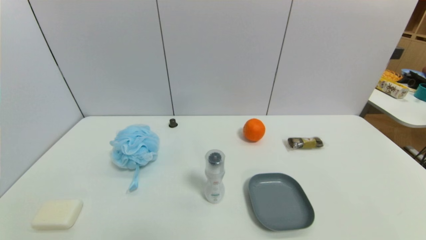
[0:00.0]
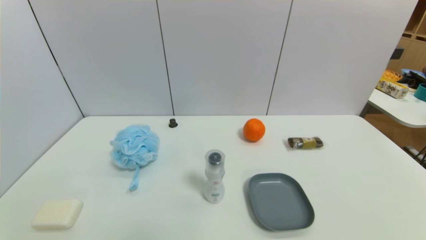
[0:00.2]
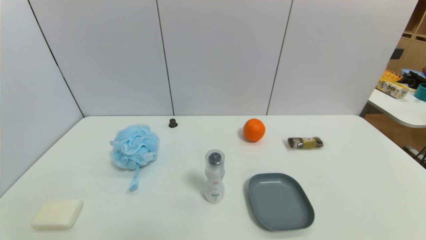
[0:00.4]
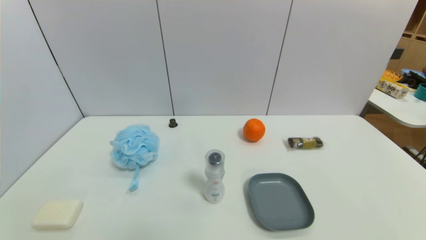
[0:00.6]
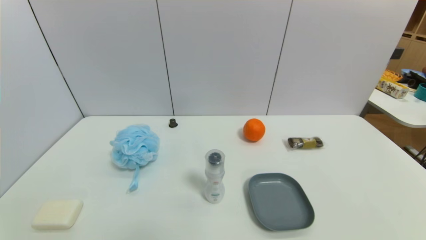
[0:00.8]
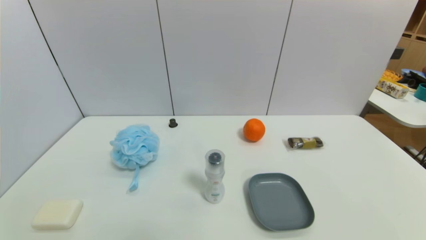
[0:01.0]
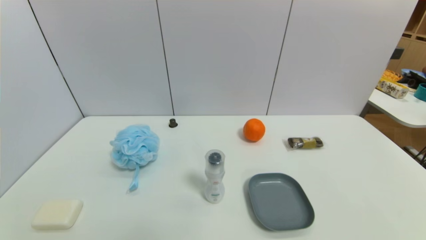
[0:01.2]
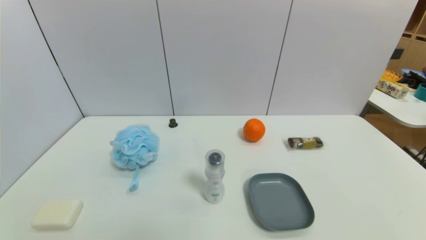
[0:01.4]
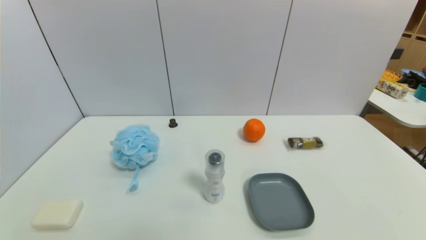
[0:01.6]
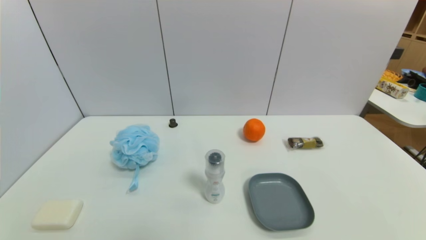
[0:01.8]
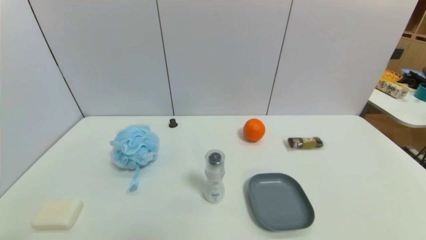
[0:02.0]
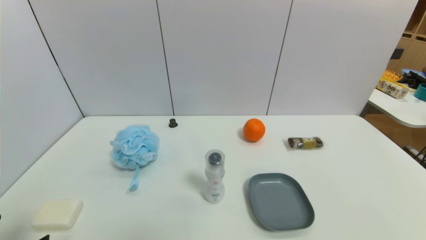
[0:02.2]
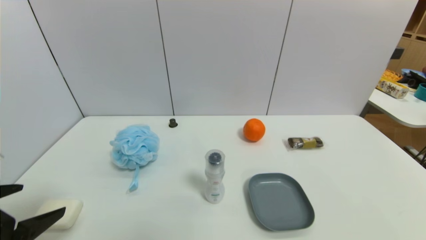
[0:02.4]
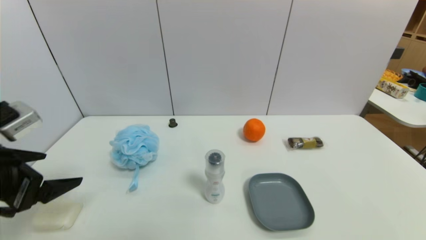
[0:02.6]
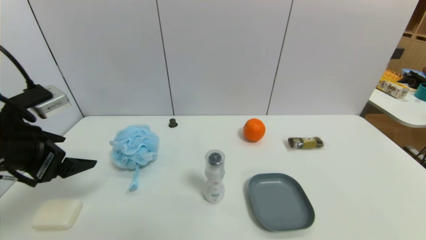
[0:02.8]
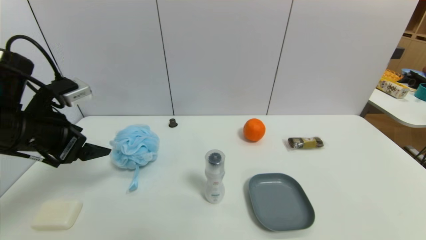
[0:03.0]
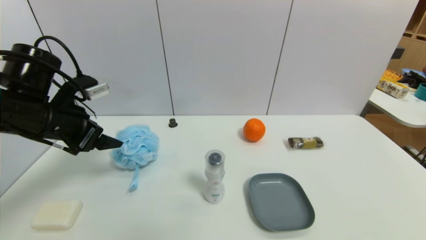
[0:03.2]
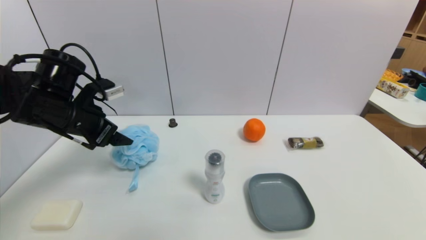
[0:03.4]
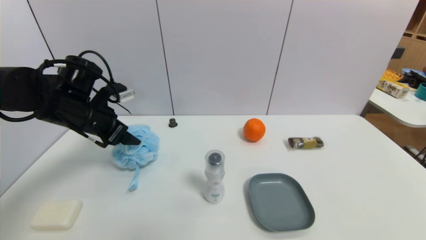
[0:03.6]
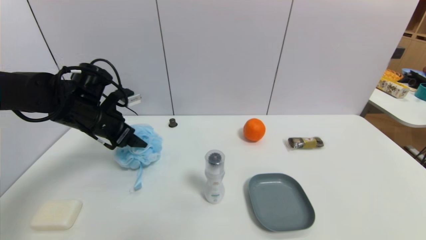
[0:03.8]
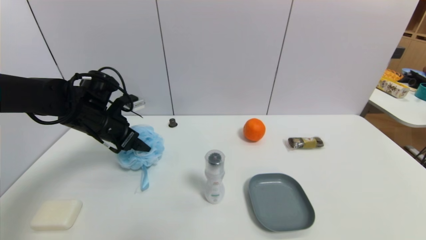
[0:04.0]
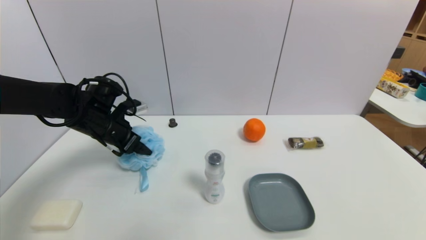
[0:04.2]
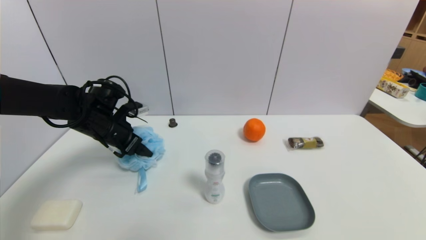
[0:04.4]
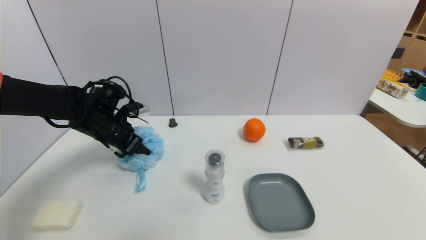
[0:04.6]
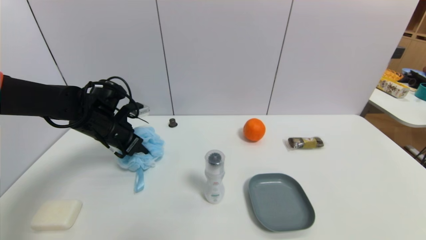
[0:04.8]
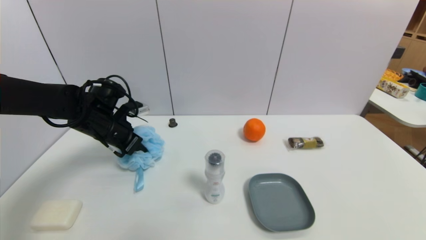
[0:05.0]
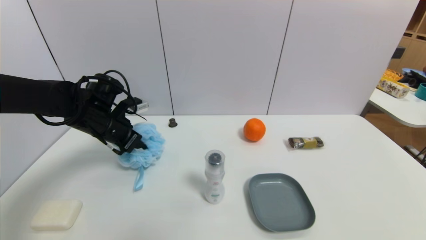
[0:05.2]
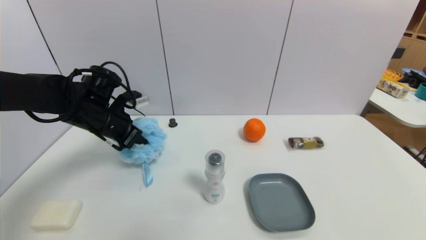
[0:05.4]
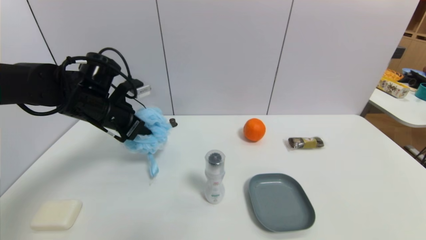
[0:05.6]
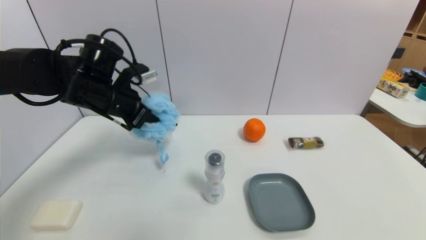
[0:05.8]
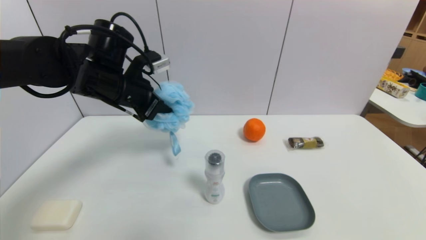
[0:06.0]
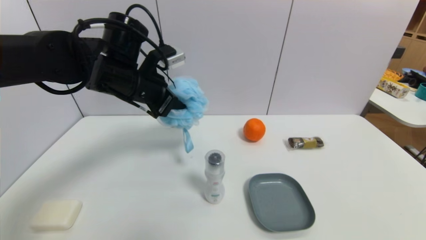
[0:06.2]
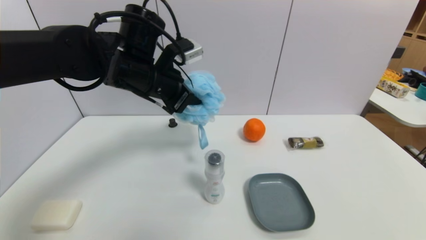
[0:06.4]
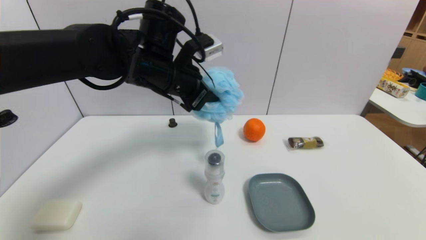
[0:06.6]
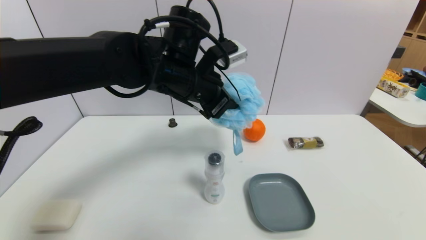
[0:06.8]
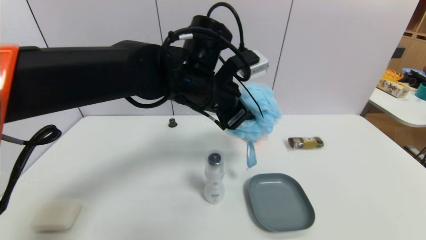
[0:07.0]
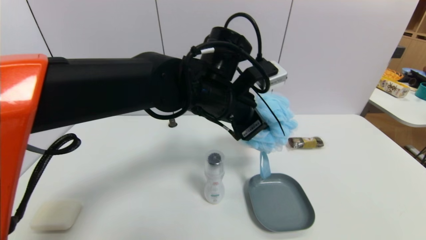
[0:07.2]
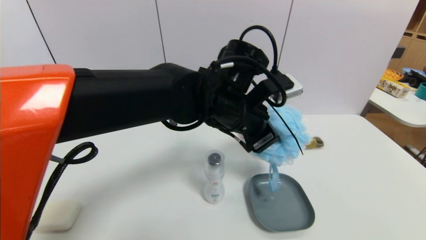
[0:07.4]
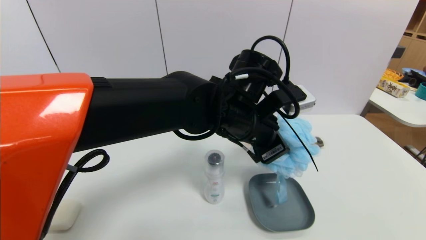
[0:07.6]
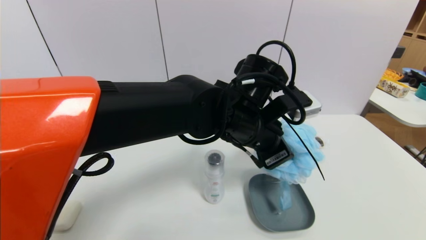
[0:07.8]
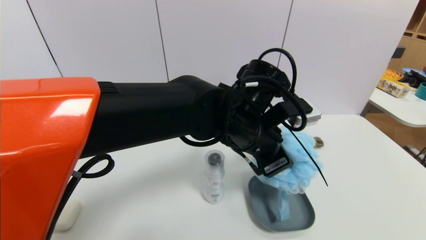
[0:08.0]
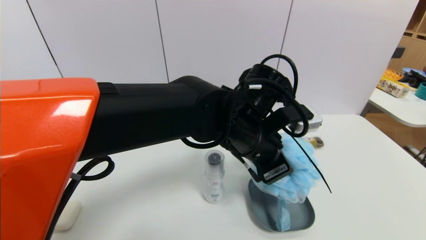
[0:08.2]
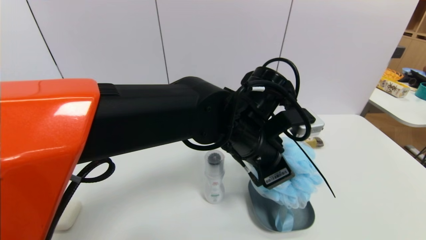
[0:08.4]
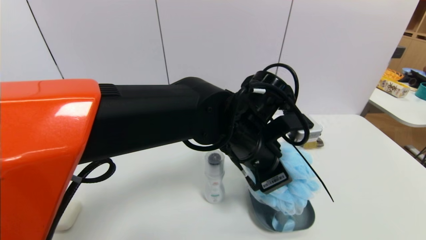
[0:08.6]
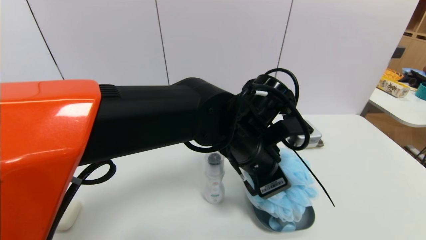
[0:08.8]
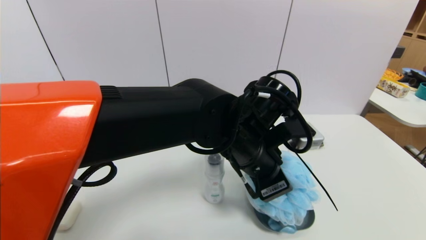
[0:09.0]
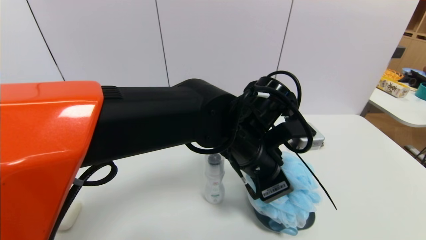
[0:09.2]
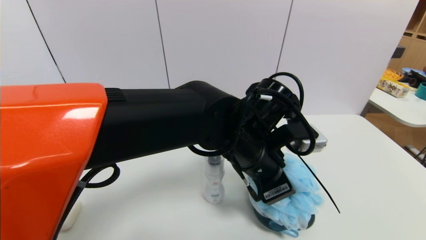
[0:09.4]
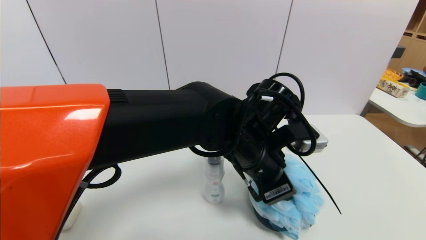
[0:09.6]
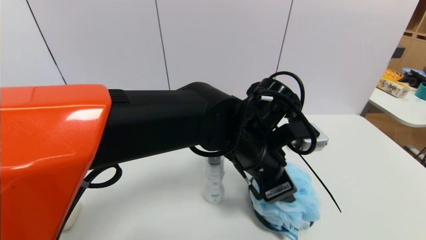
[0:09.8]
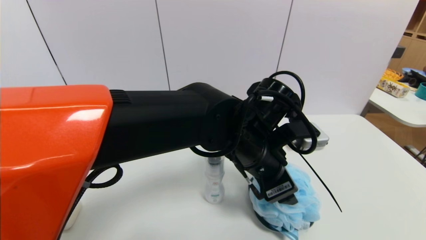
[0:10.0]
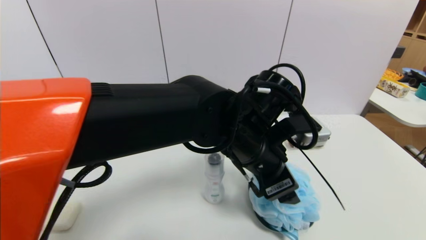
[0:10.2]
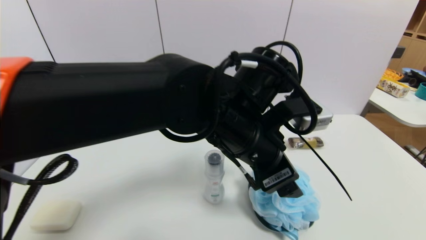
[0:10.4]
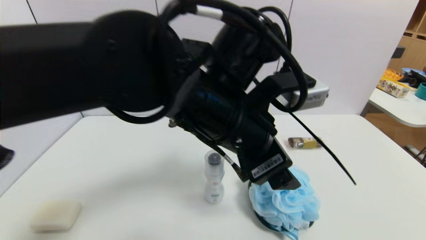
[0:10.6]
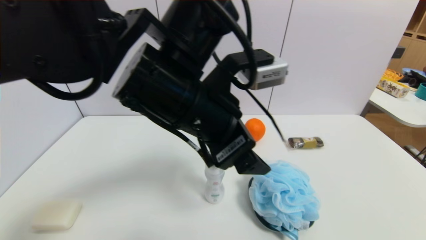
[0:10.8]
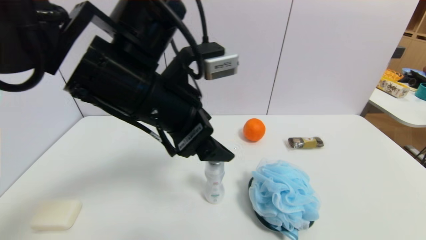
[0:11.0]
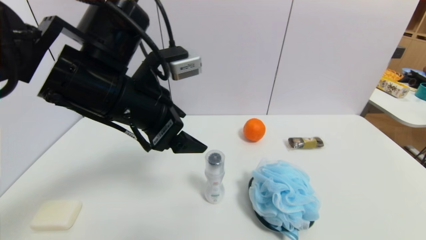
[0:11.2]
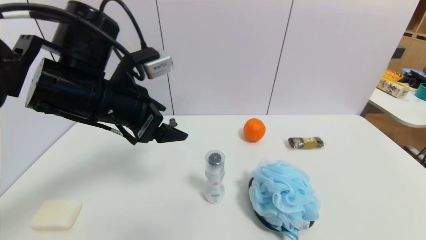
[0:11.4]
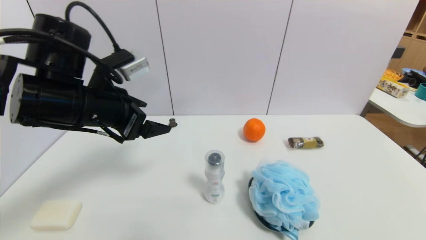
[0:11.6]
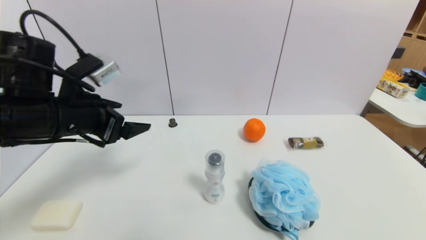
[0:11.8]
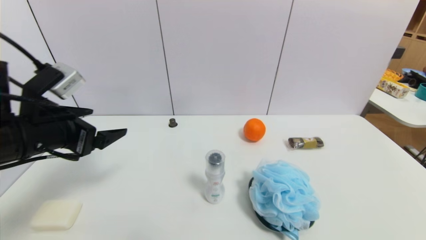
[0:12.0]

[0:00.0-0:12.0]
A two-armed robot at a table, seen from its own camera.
Task of the whole recording: use a gripper to pick the target object and place on the dish.
Step, 0:00.0 to 0:04.8: Grasp the shower sphere with the left gripper.
Step, 0:05.0 to 0:10.8: Place the shower sphere on the dish with the left gripper.
0:01.6 to 0:03.0: The left gripper goes roughly 30 cm forward and upward.
0:03.0 to 0:04.4: The left gripper moves forward and downward, some 15 cm.
0:04.4 to 0:06.0: The left gripper travels upward and to the right by about 15 cm, and closes its fingers.
0:06.0 to 0:07.6: The left gripper is displaced to the right by some 20 cm.
0:09.0 to 0:10.4: The left gripper changes place by about 5 cm, and opens.
0:10.4 to 0:12.0: The left gripper moves to the left, some 30 cm.

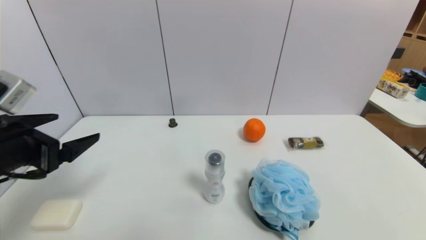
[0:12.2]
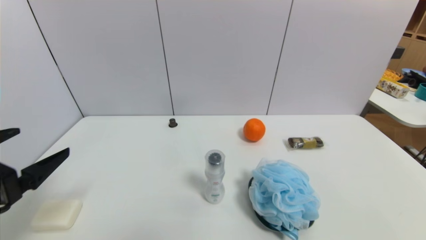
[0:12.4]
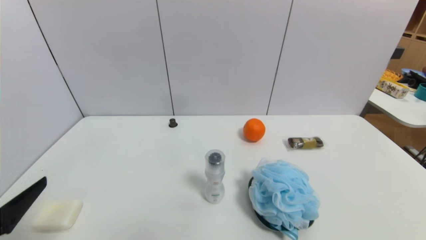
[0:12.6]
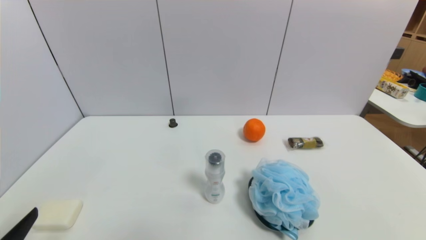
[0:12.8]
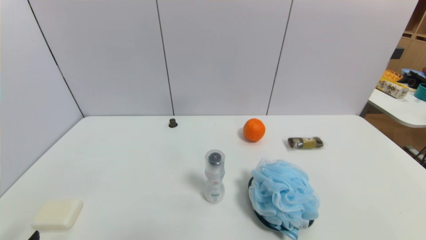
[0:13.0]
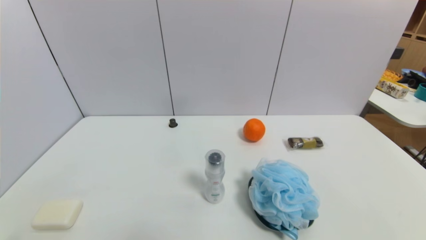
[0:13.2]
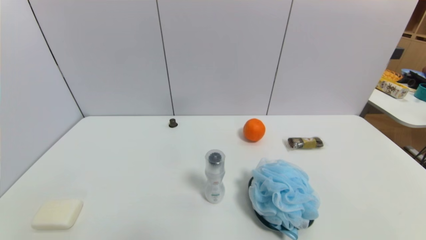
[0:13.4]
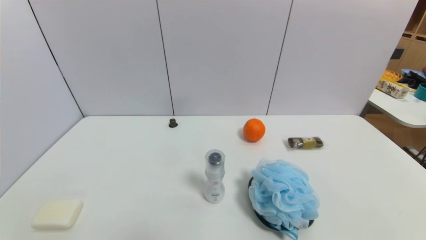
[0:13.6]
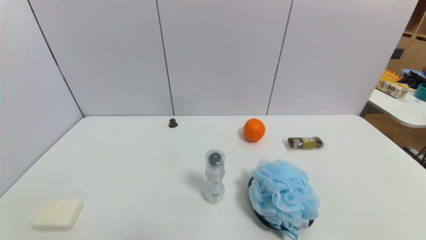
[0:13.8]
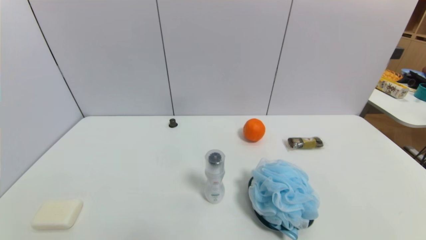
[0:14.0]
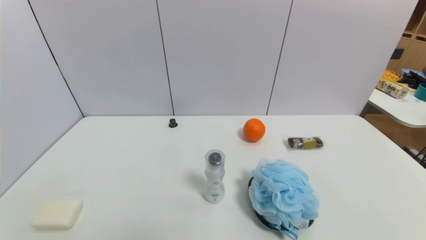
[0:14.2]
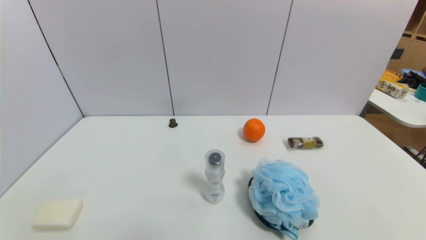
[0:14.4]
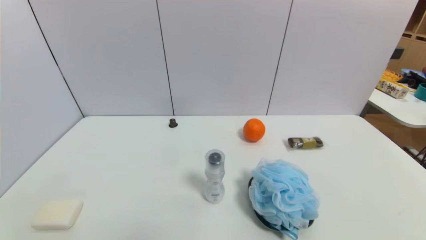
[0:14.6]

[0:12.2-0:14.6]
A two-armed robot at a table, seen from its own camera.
Task of the whole recording: use a gripper to pick the target object and place on the dish.
0:12.2 to 0:13.4: The left gripper shifts roughly 25 cm downward and backward.
